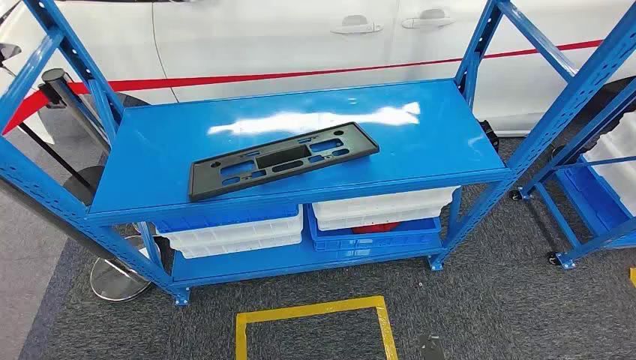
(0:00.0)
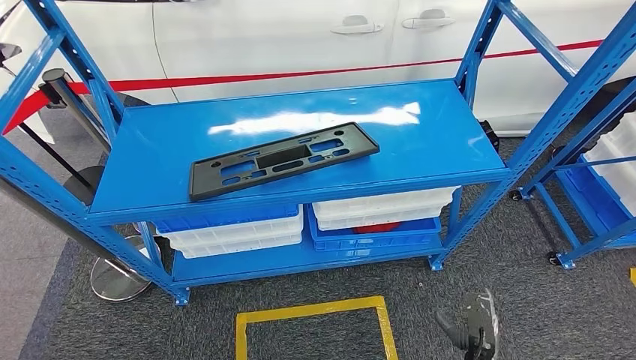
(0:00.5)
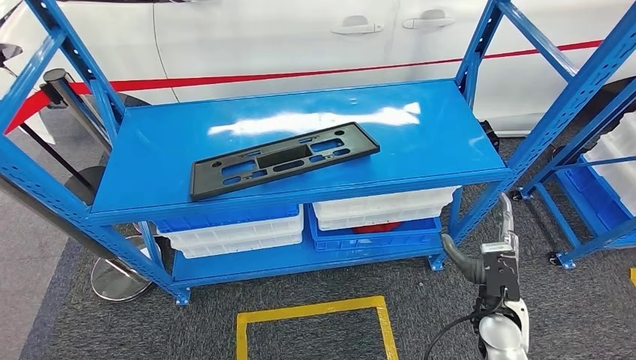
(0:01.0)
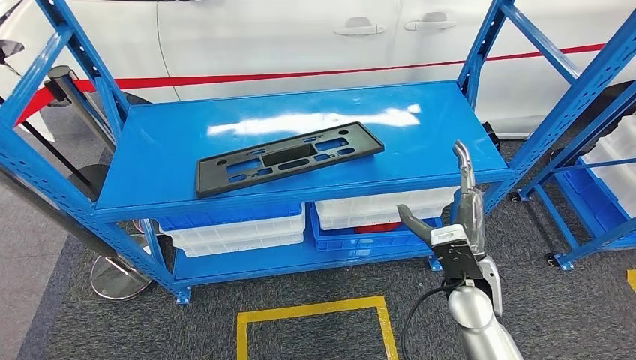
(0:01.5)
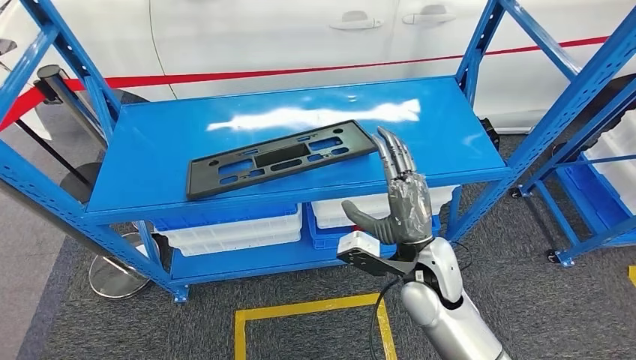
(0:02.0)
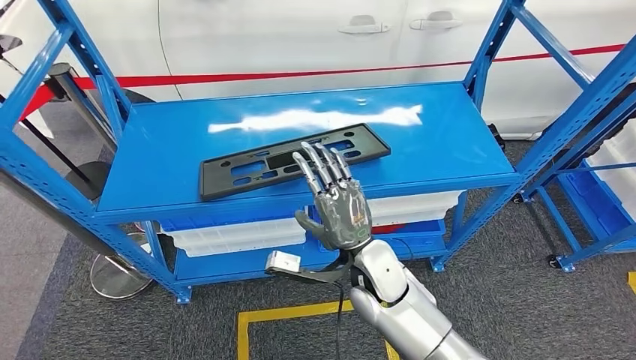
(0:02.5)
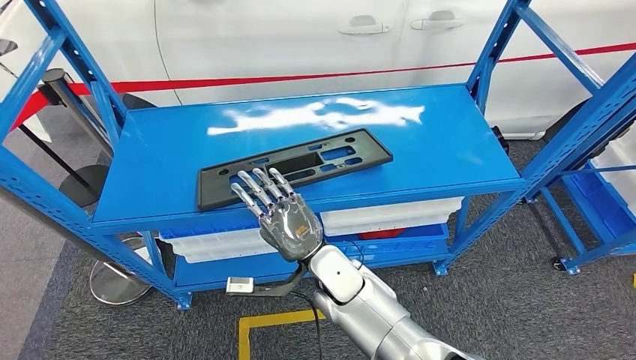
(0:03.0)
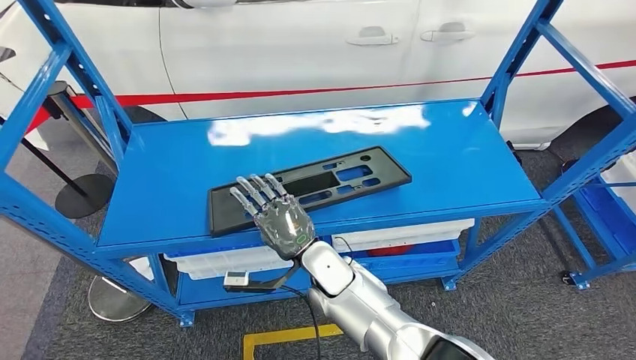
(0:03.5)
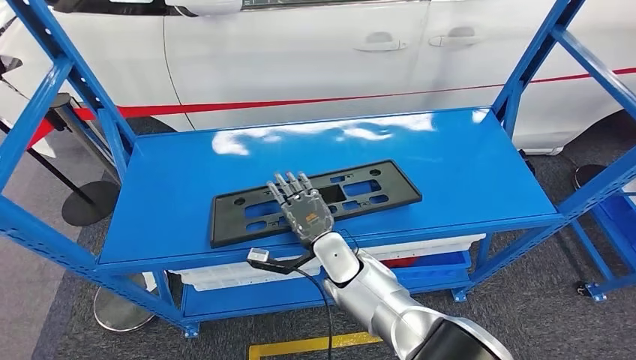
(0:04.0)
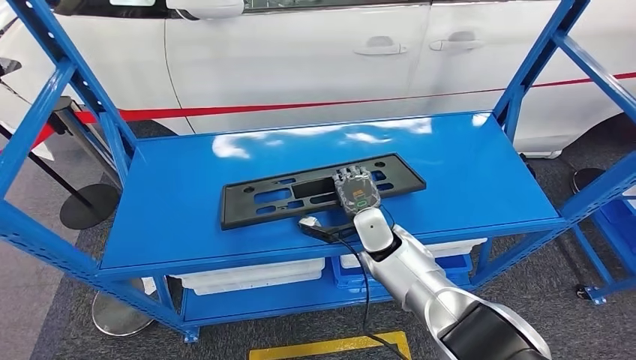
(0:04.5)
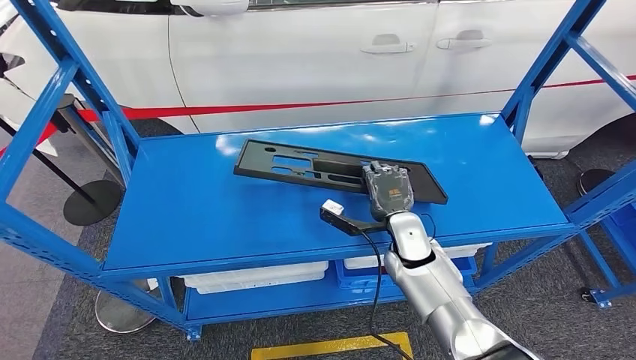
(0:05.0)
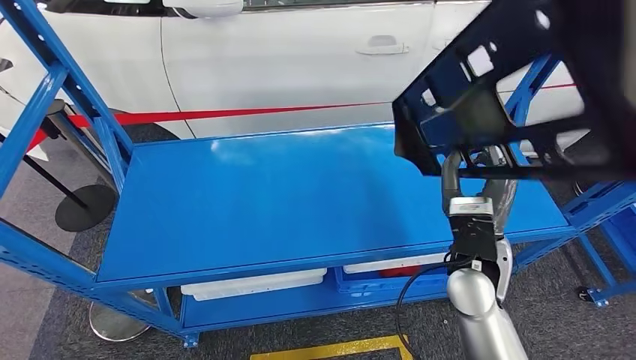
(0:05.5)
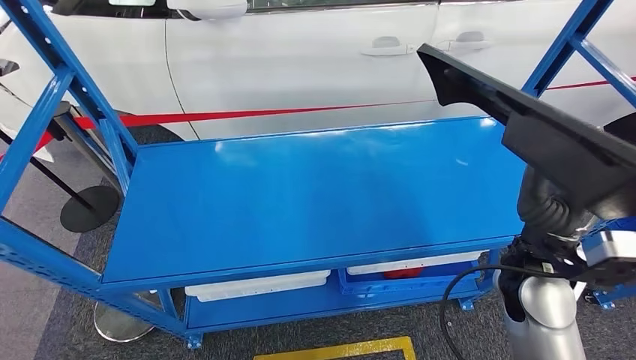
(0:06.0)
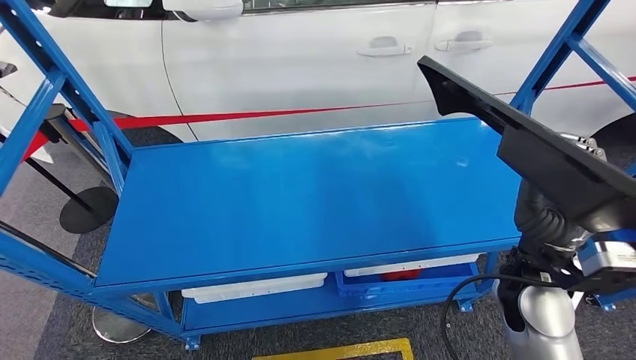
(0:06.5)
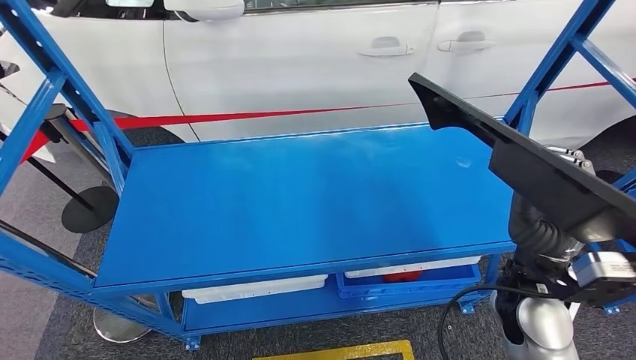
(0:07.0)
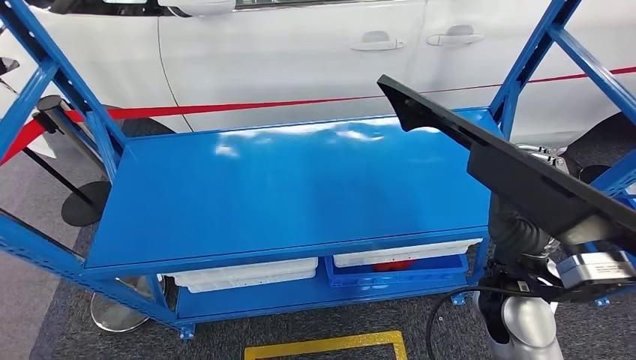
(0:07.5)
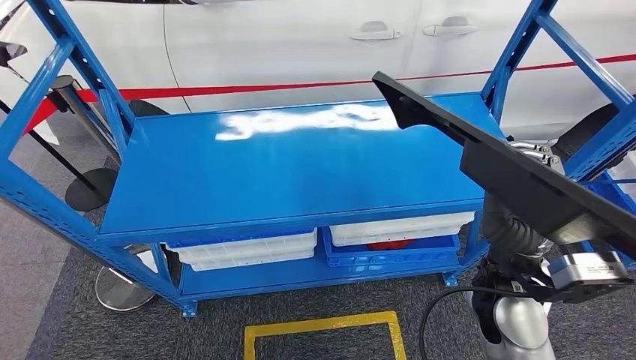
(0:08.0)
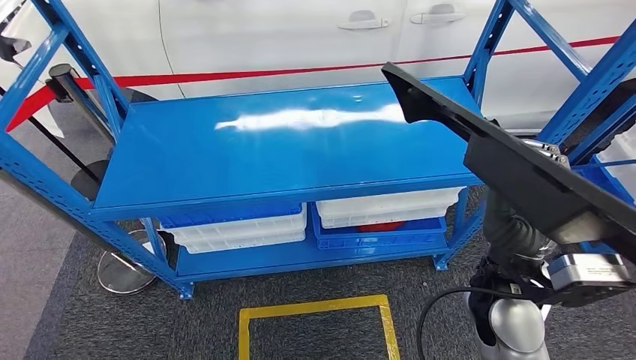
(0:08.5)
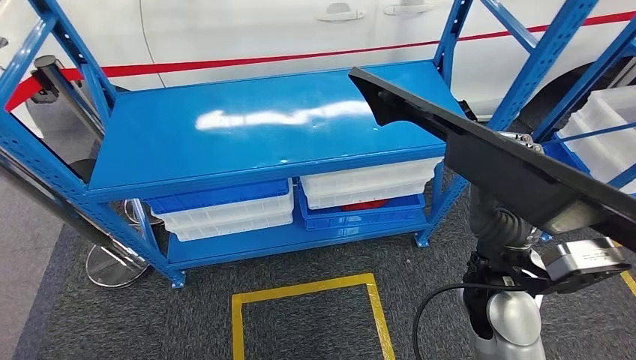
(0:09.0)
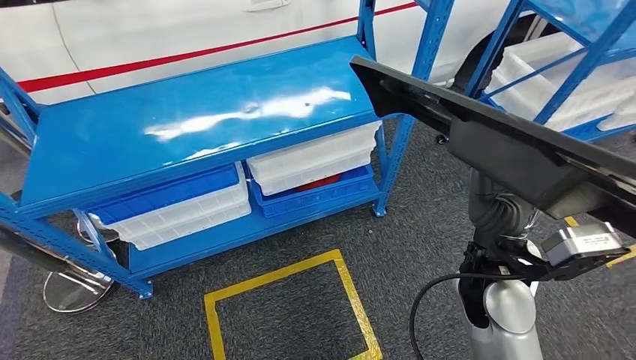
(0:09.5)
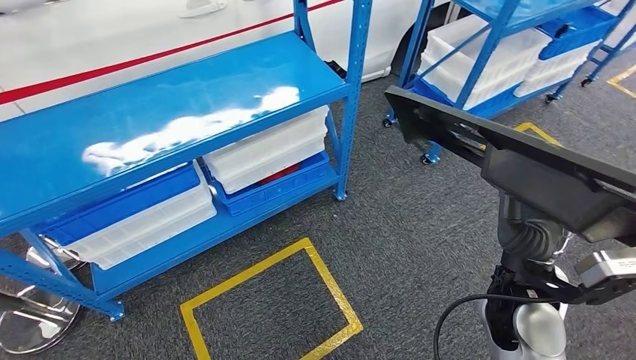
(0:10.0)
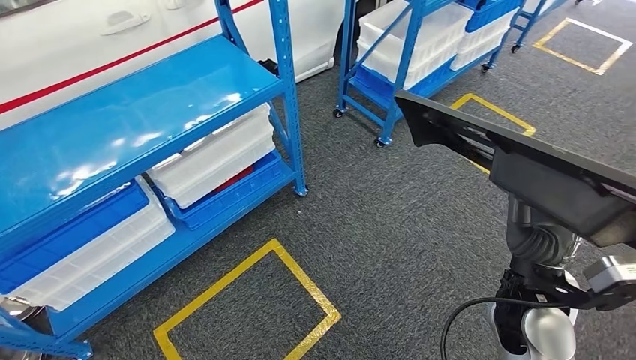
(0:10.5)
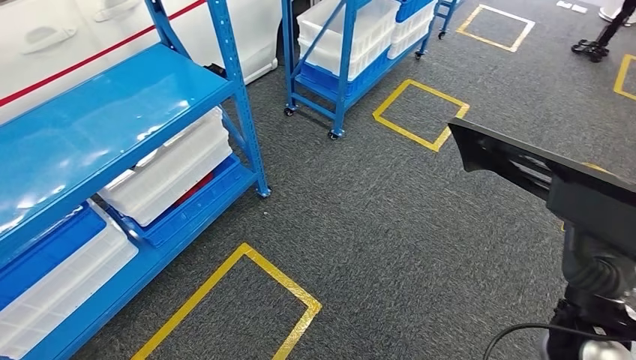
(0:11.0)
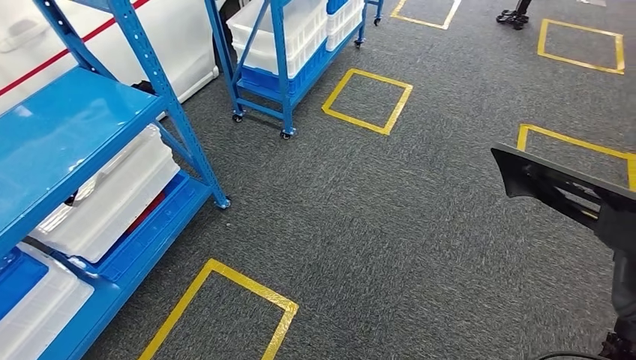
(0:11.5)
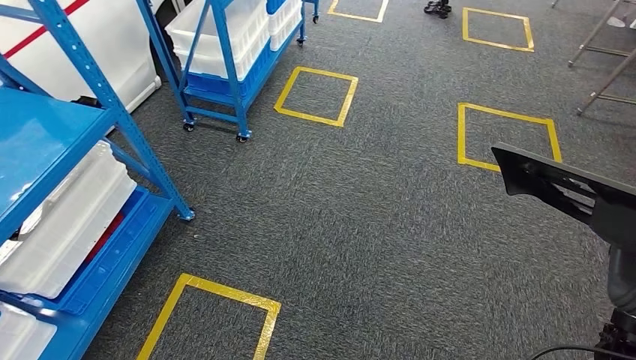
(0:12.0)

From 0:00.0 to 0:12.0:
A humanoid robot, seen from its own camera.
Step, from 0:00.0 to 0:05.5: Pick up the large material from the shelf.

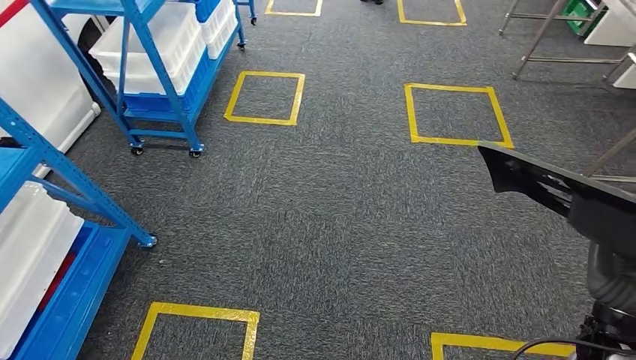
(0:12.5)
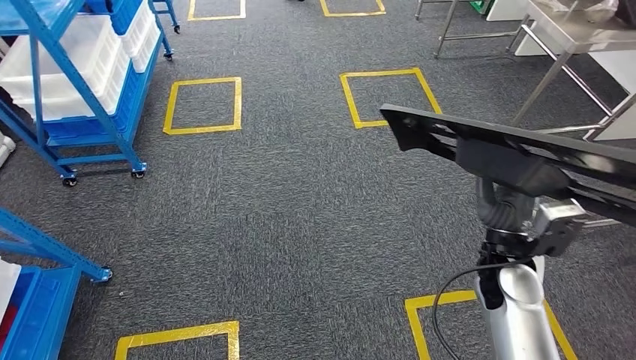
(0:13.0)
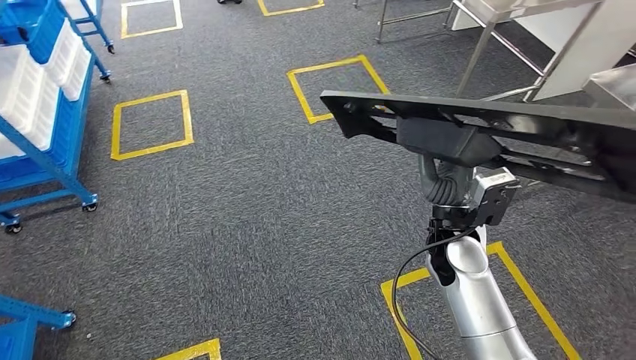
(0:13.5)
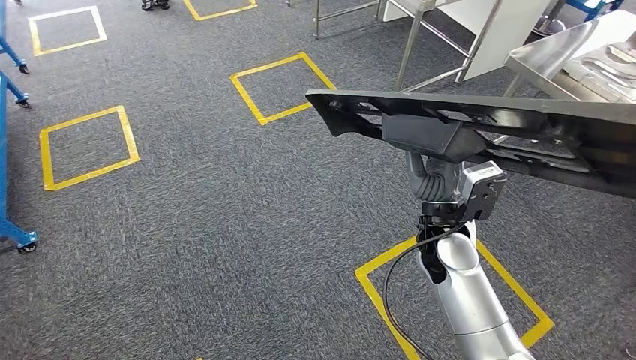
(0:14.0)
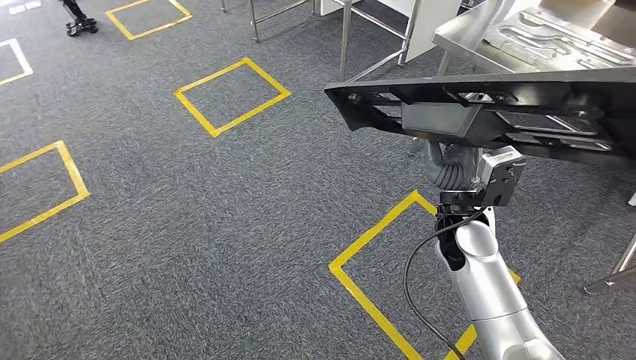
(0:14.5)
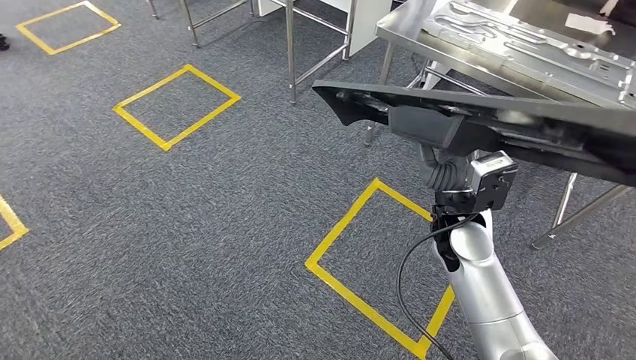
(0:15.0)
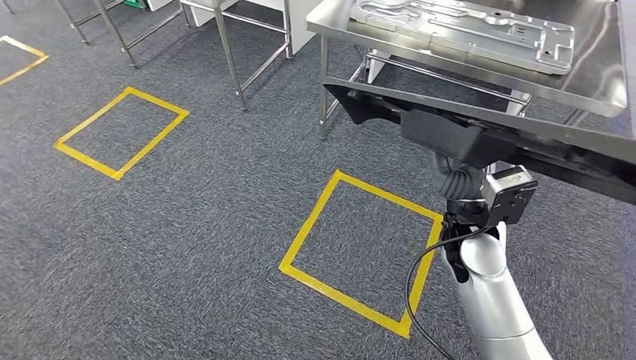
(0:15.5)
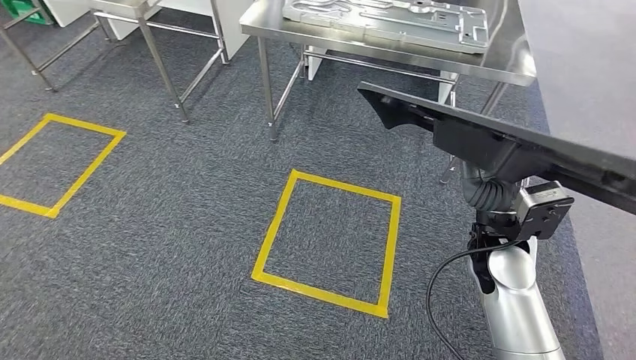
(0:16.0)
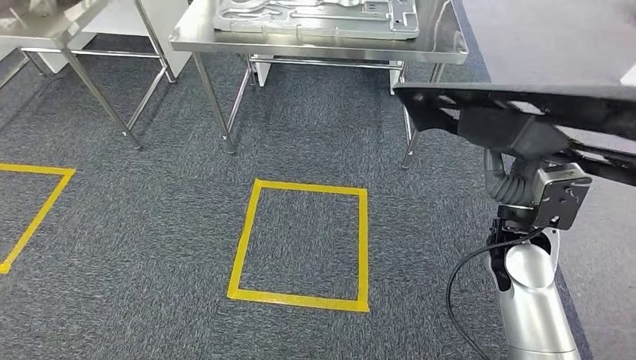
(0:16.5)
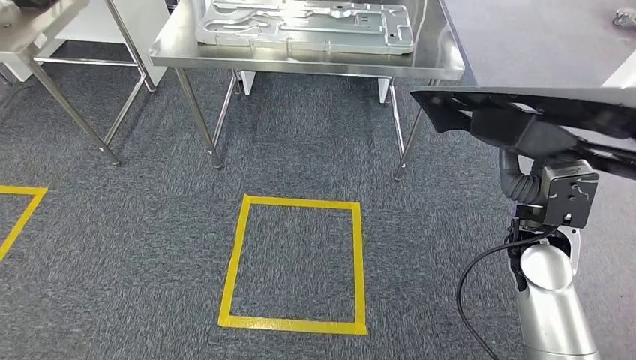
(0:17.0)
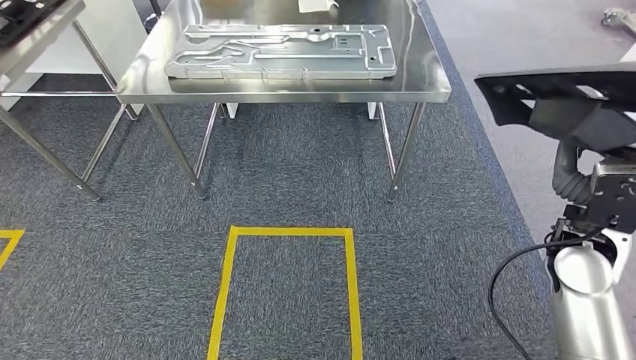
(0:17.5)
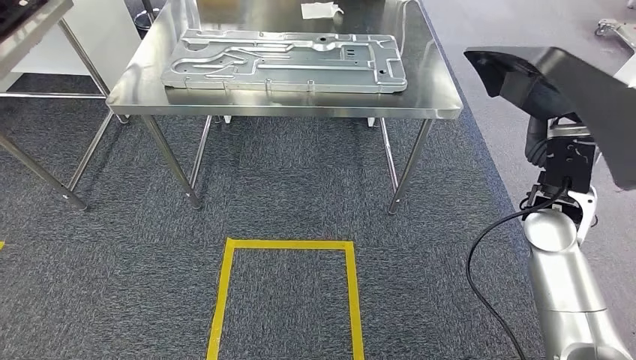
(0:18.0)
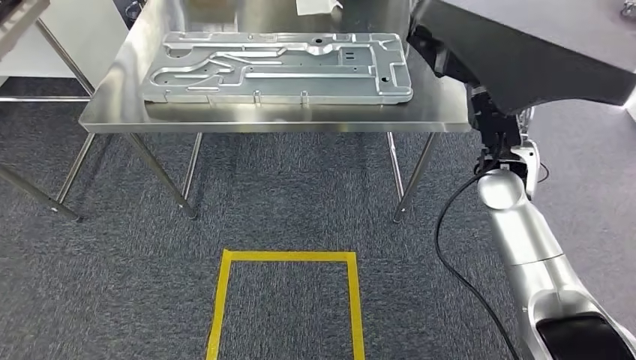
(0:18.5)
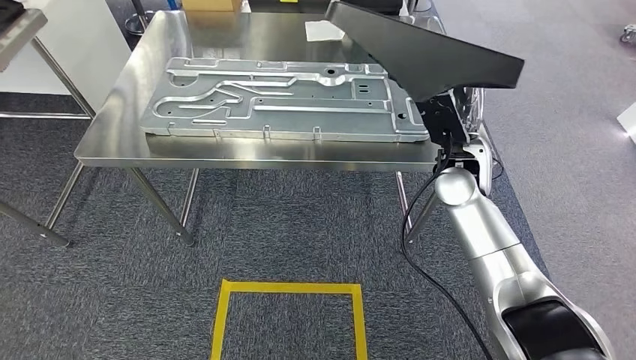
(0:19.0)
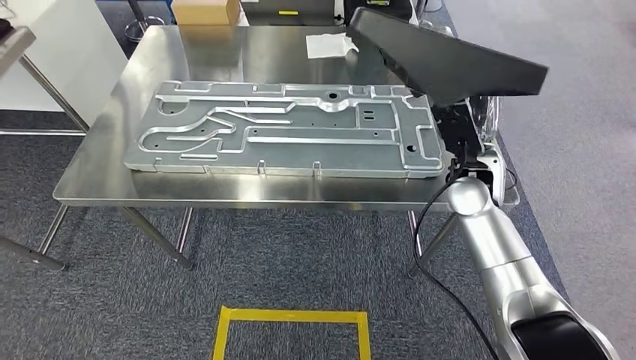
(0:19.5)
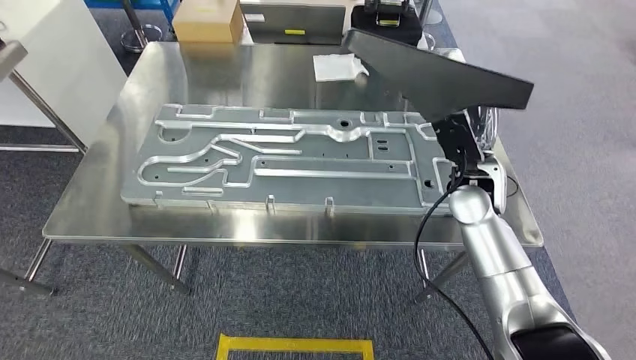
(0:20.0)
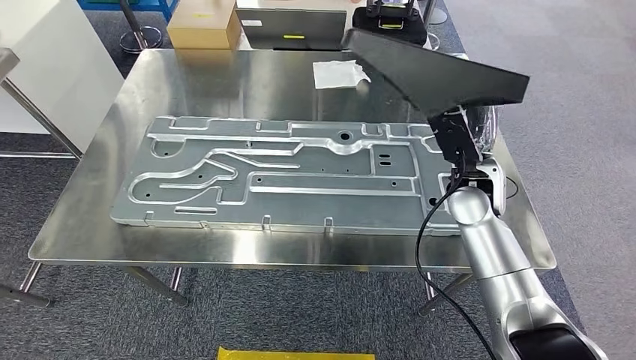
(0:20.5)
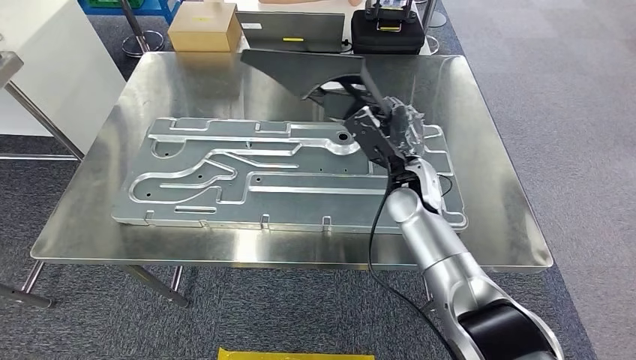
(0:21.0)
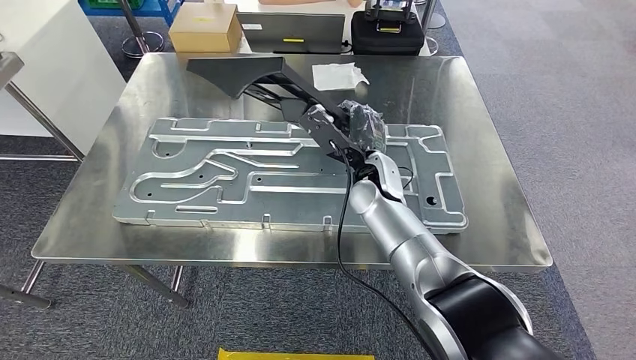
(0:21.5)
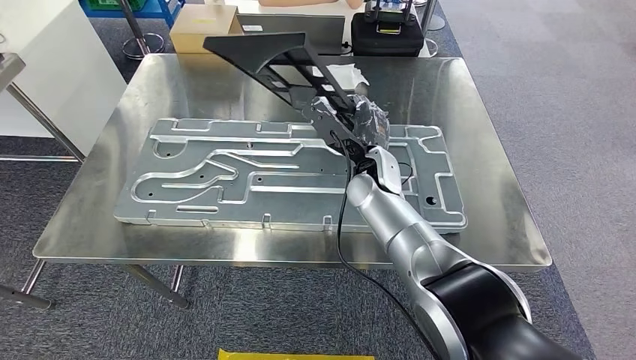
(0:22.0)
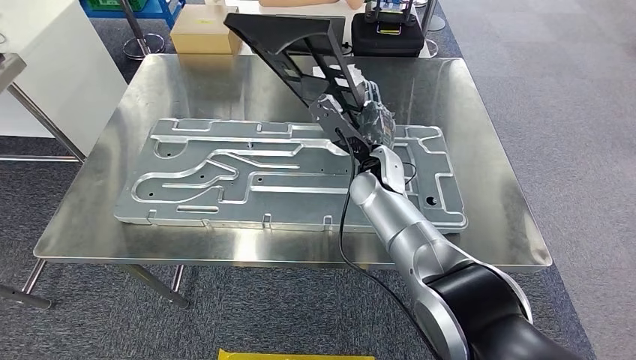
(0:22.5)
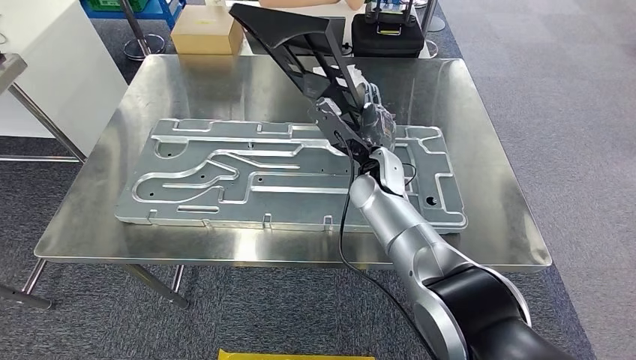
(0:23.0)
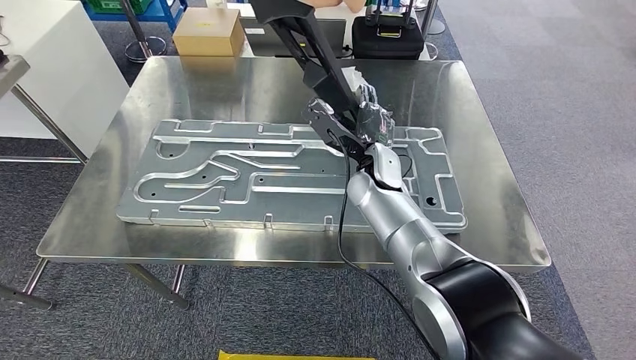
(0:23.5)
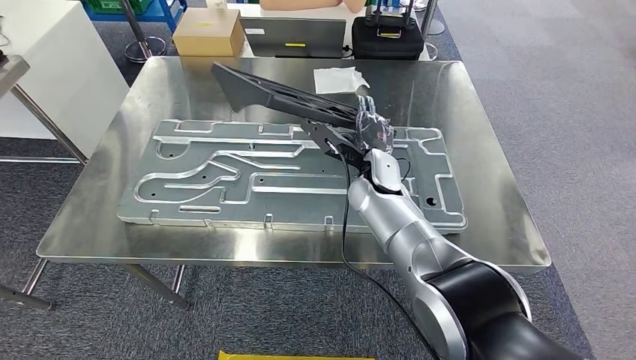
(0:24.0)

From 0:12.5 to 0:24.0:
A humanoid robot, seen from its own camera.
Step, from 0:12.5 to 0:19.0: Move the large material to the workbench.
From 0:22.0 to 0:24.0: The hands move only a little.
